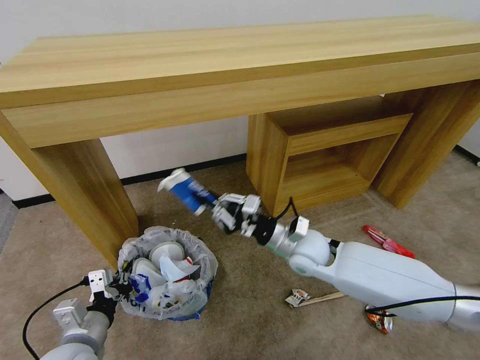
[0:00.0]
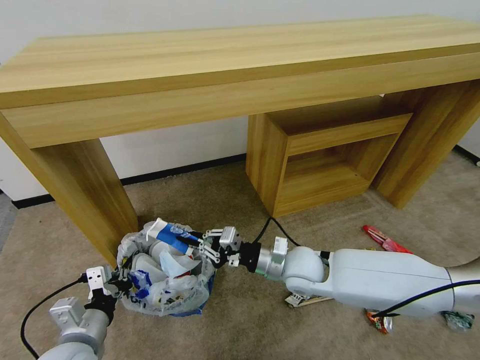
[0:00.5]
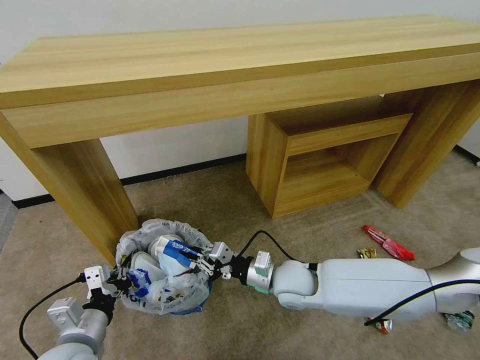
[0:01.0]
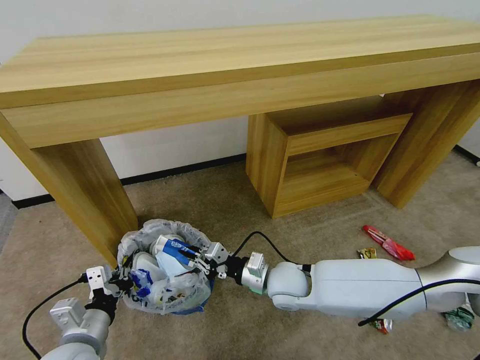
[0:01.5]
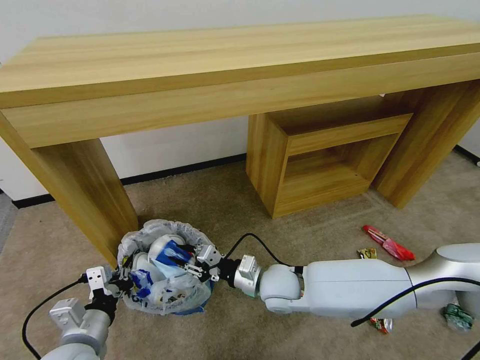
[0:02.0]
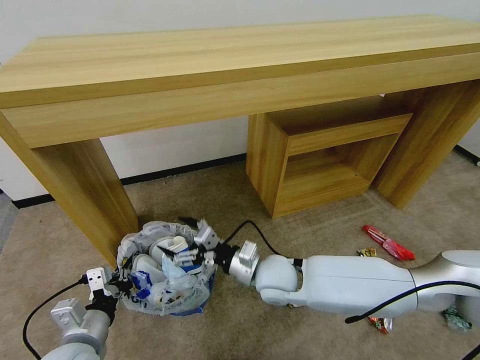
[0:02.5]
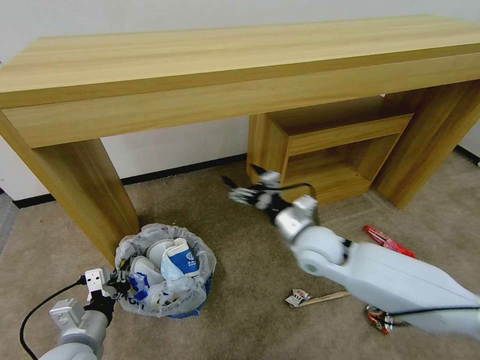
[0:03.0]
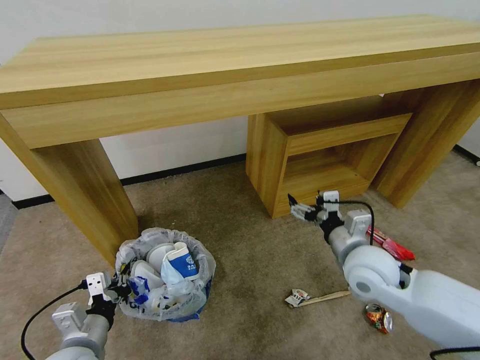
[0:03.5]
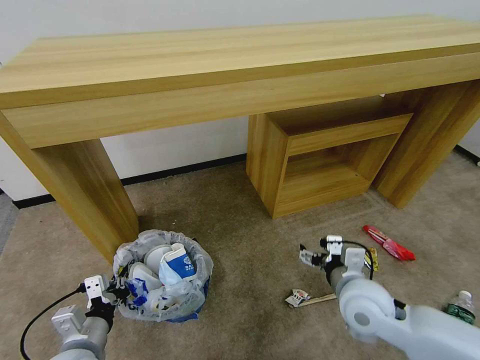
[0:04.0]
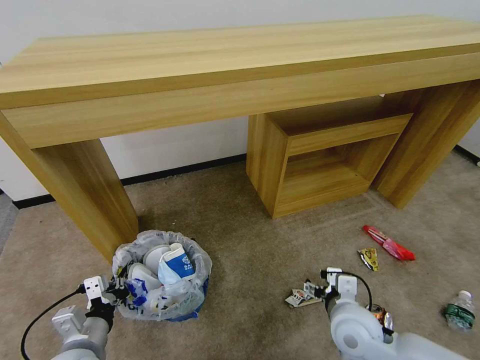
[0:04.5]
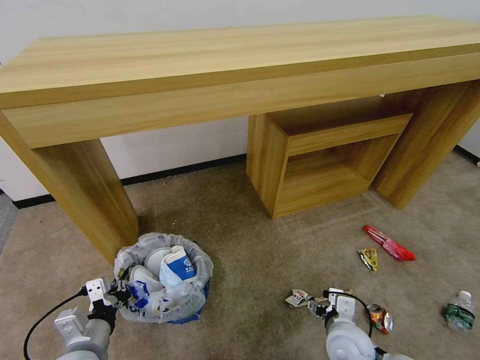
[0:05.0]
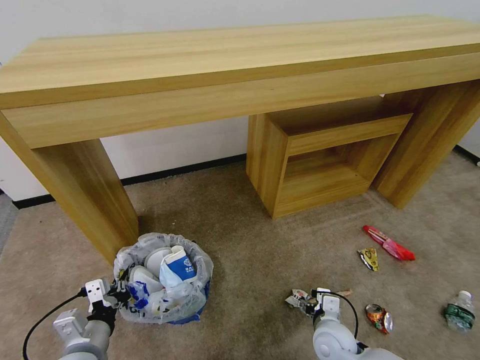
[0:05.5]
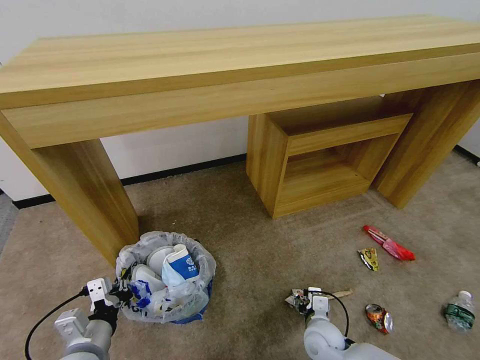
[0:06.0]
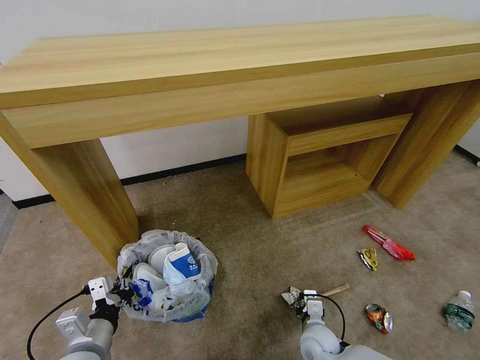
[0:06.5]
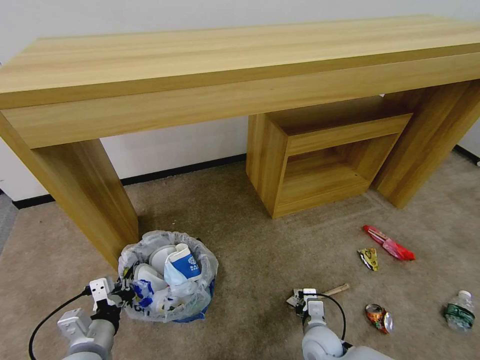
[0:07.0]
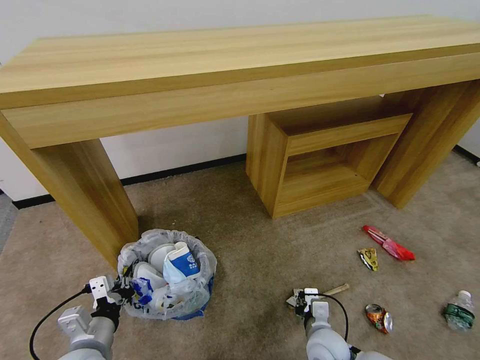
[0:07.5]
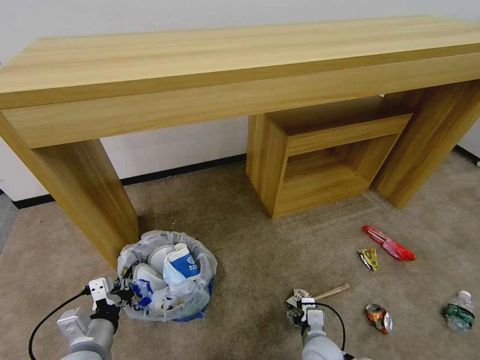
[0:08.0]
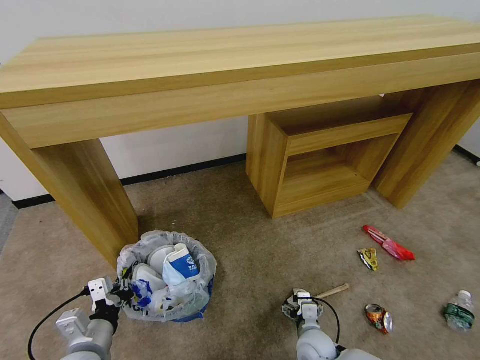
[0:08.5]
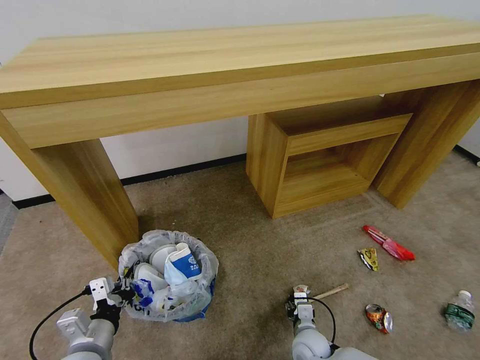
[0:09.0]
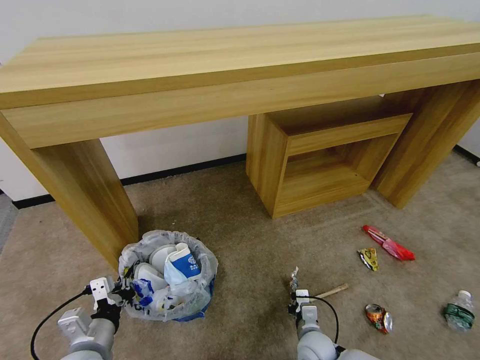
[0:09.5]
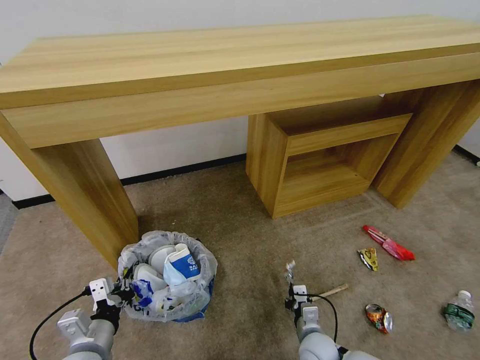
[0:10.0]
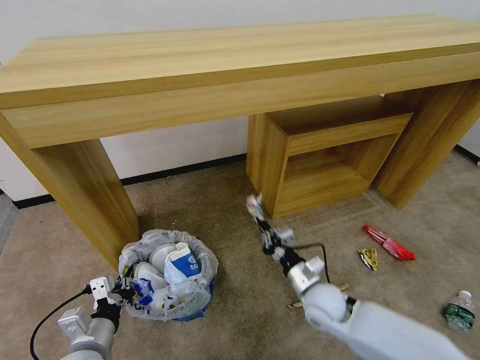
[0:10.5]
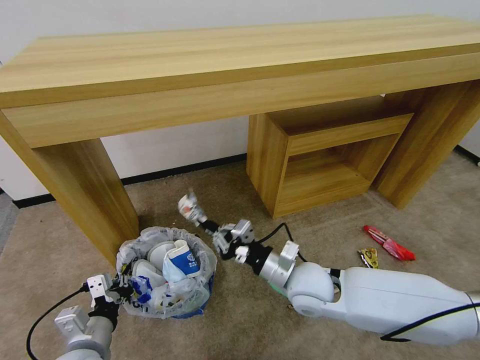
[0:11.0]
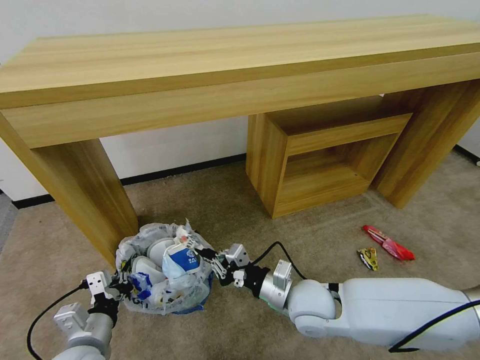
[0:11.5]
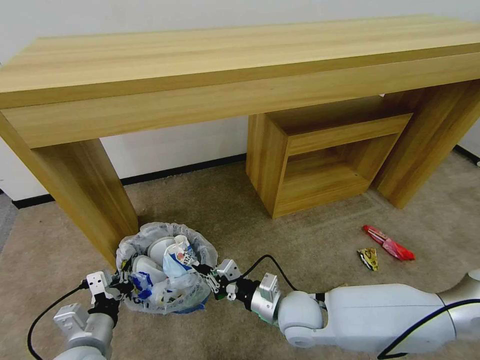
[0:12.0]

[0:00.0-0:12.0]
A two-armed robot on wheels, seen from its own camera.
Task of the whole recording: Pick up the trash bin and place the garbage on the floor into it.
0:00.0 to 0:02.0: The right gripper moves to the left, backward and downward, approximately 10 cm.
0:02.0 to 0:04.0: The right gripper travels to the right and upward by roughly 15 cm, and opens its fingers.
0:04.0 to 0:06.0: The right gripper shifts roughly 25 cm downward.
0:06.0 to 0:08.0: The right gripper closes and opens again.
0:08.0 to 0:10.0: The right gripper closes its fingers.
0:10.0 to 0:12.0: The right gripper shifts roughly 20 cm upward and to the left.

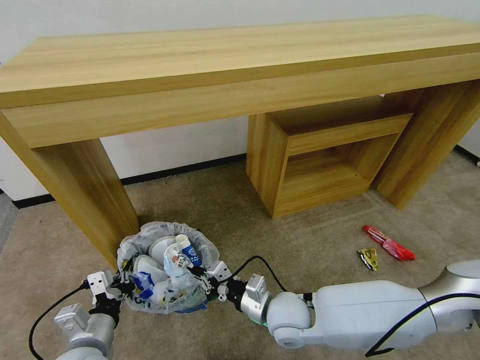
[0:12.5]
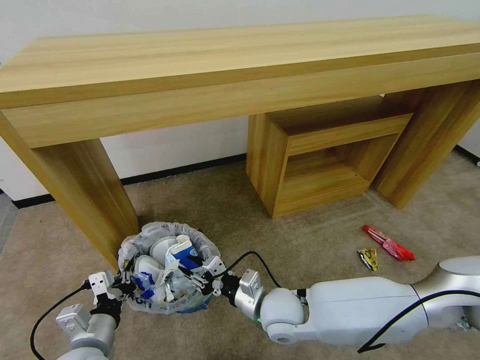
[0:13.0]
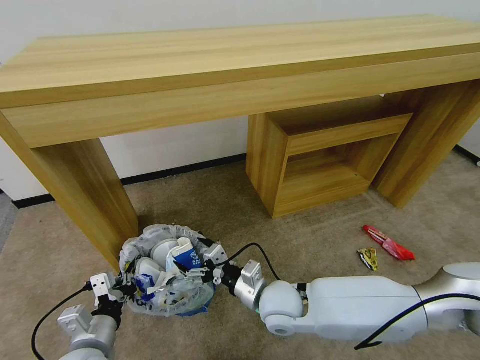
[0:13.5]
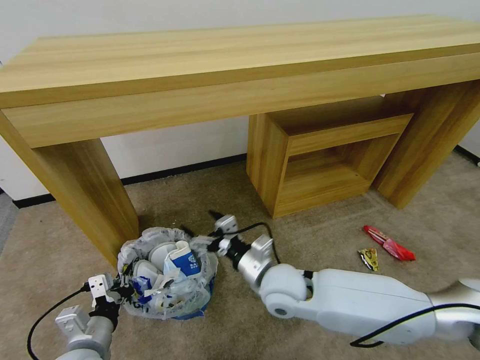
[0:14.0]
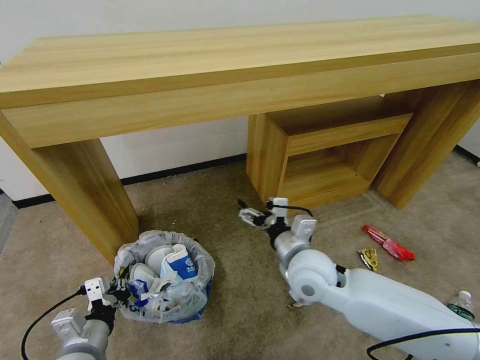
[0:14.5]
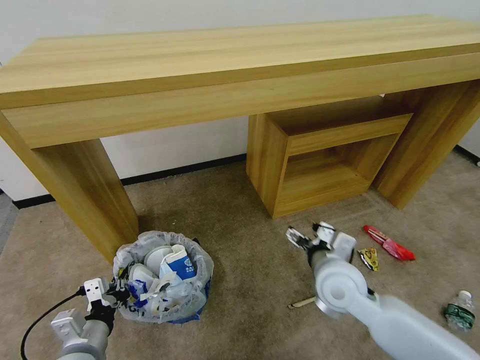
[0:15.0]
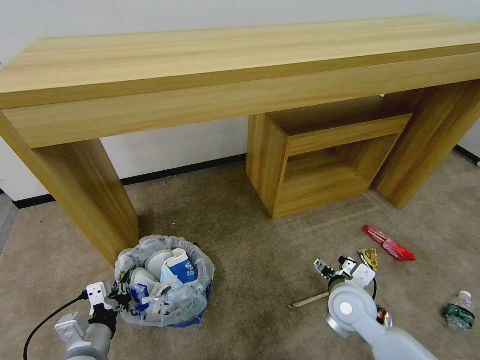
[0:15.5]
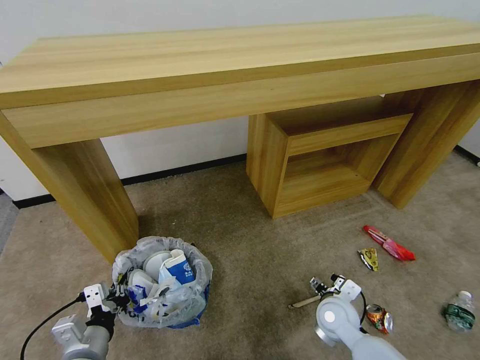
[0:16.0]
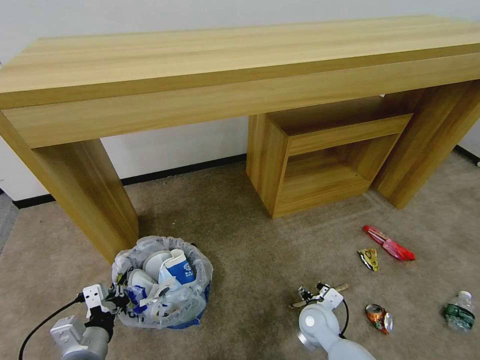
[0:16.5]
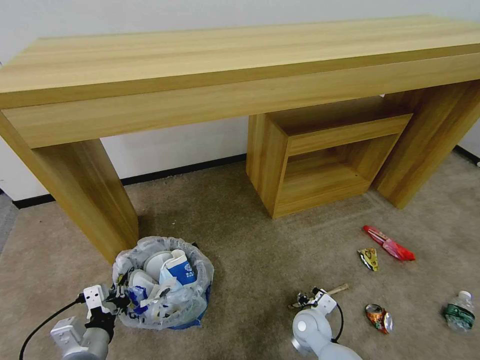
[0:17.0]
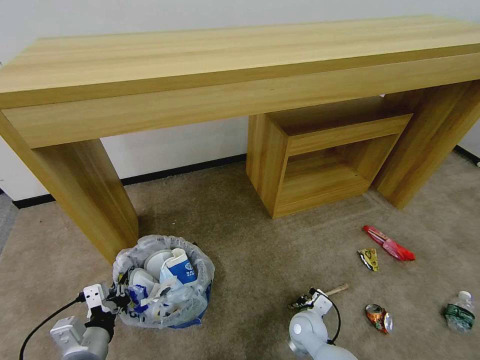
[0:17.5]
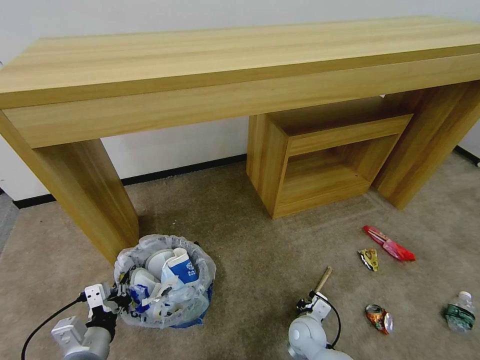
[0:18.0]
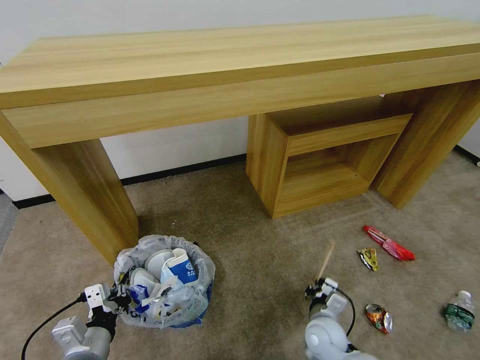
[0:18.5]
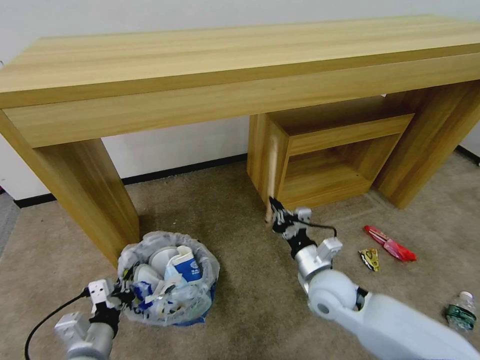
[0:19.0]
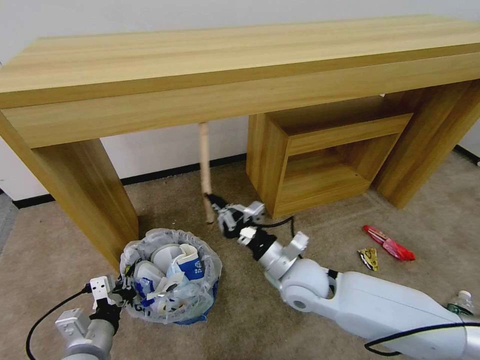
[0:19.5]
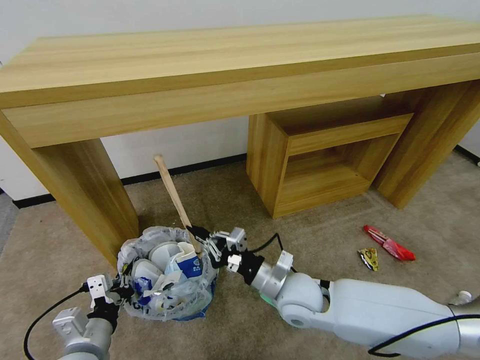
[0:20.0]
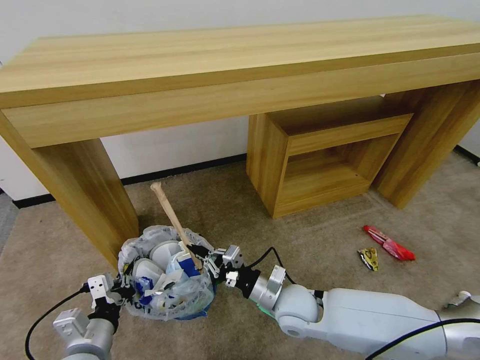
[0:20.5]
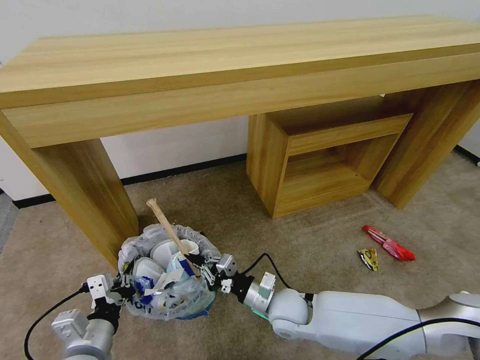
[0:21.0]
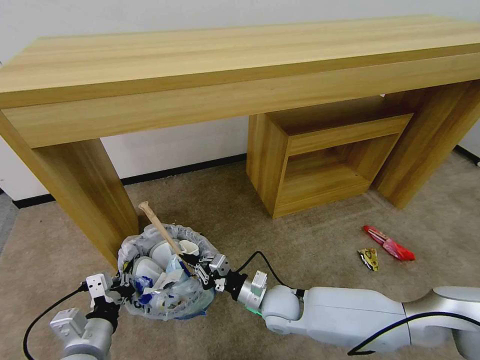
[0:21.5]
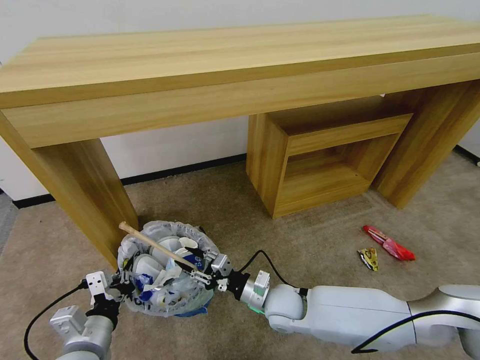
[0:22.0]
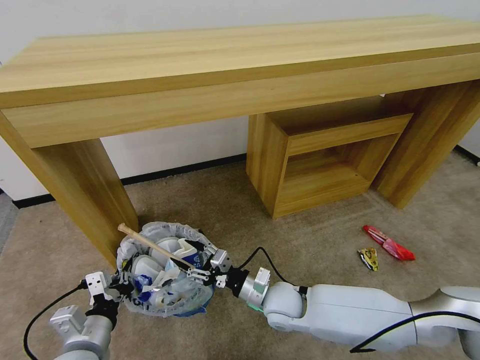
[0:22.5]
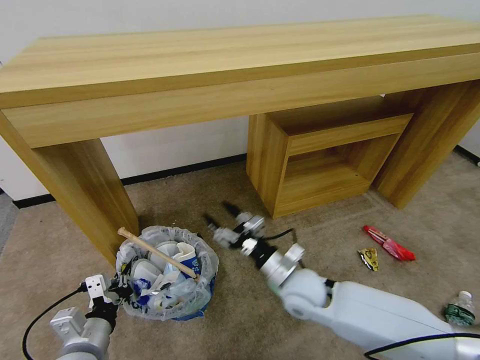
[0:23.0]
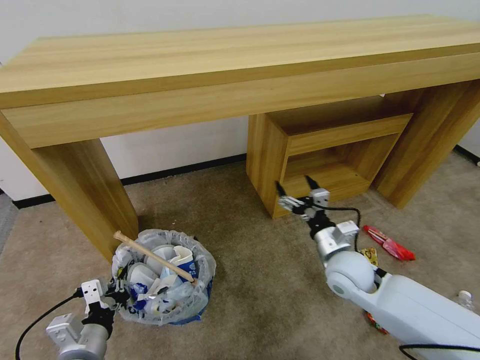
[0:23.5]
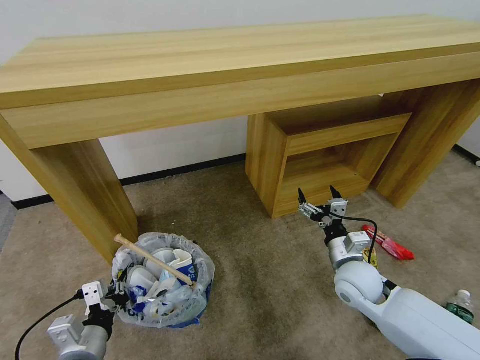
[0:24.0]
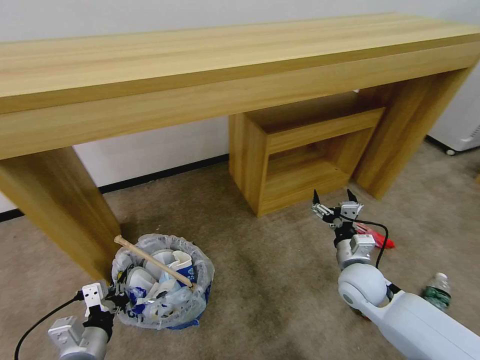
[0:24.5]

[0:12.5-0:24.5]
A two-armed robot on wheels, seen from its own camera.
Task of the whole recording: Pick up the trash bin and place the garbage on the floor into it.
0:12.5 to 0:14.5: The right gripper moves upward and forward, roughly 10 cm, and opens up.
0:14.5 to 0:16.5: The right gripper heads downward, covering roughly 20 cm.
0:16.5 to 0:18.5: The right gripper closes its fingers.
0:18.5 to 0:20.5: The right gripper is displaced upward and to the left by about 15 cm.
0:20.5 to 0:22.5: The right gripper opens.
0:22.5 to 0:24.5: The right gripper goes approximately 20 cm to the right, and opens.

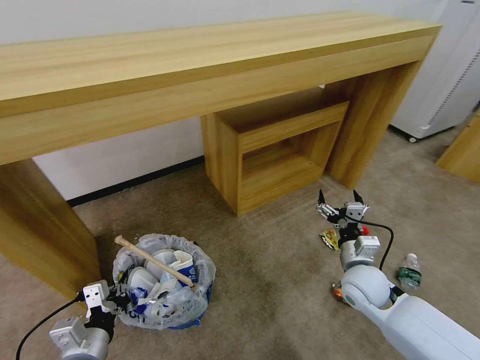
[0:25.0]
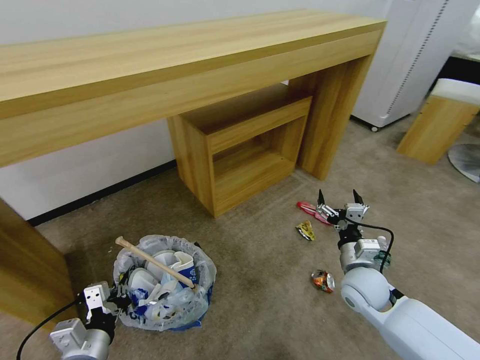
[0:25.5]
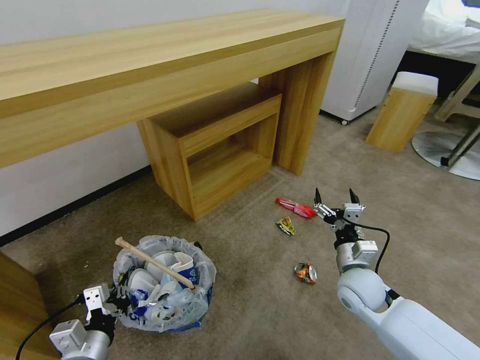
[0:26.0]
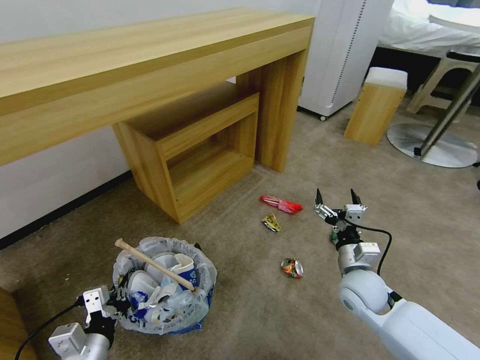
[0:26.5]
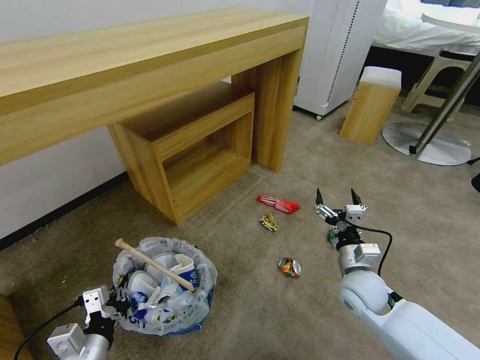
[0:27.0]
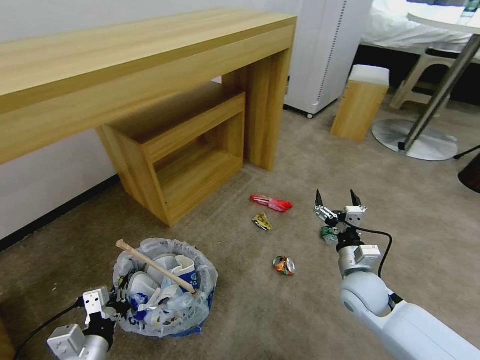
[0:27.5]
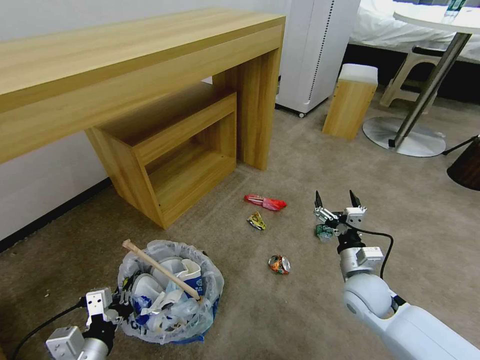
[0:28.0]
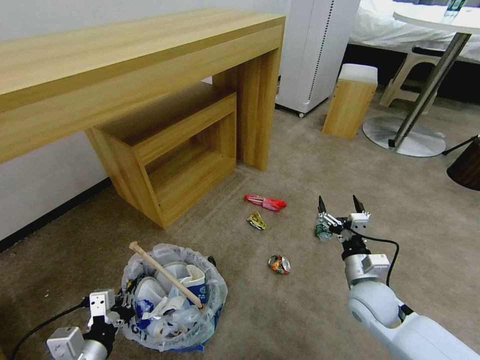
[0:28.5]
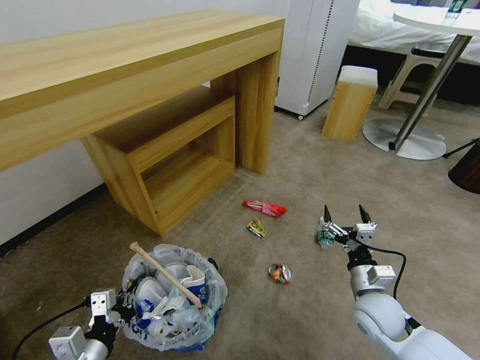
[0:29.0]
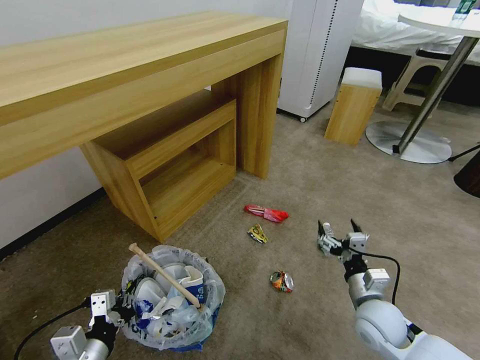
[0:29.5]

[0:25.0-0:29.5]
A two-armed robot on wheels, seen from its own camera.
Task of the whole recording: Pick up the trash bin and place the garbage on the floor into it.
0:27.0 to 0:29.5: The right gripper shifts approximately 5 cm backward.
